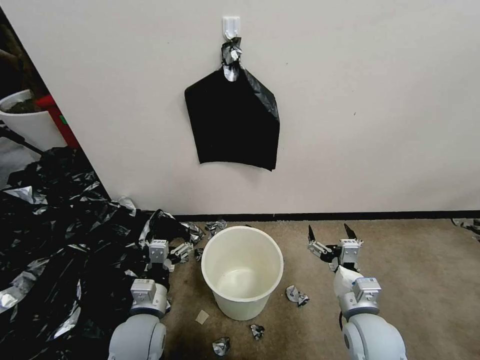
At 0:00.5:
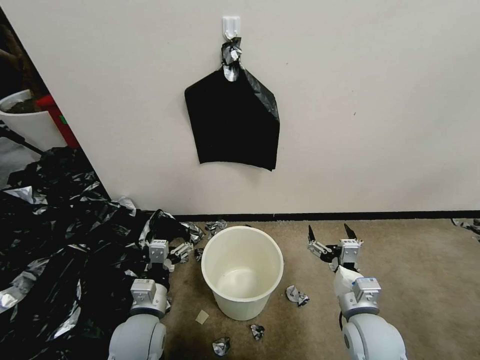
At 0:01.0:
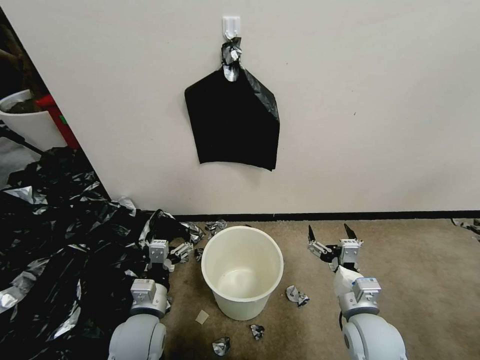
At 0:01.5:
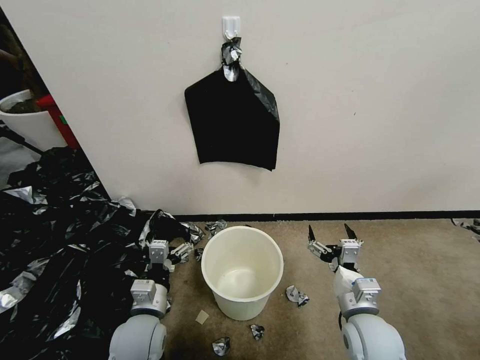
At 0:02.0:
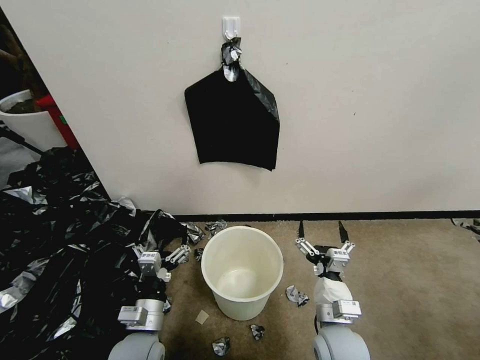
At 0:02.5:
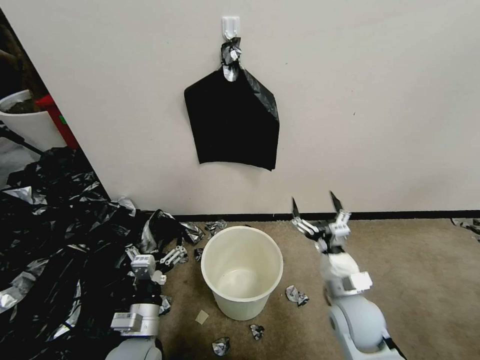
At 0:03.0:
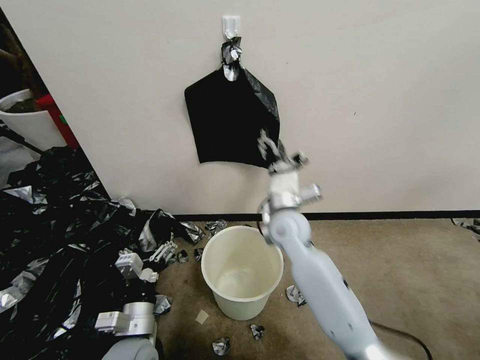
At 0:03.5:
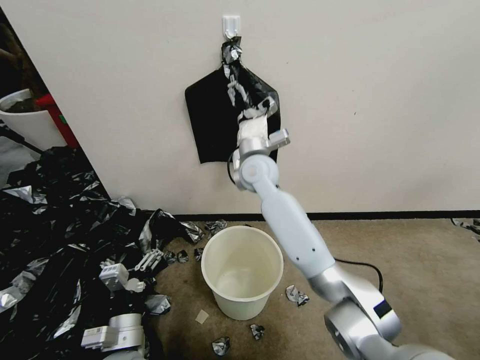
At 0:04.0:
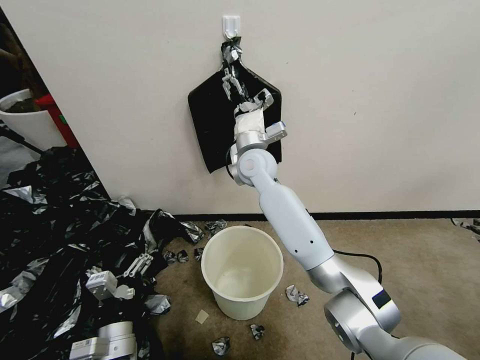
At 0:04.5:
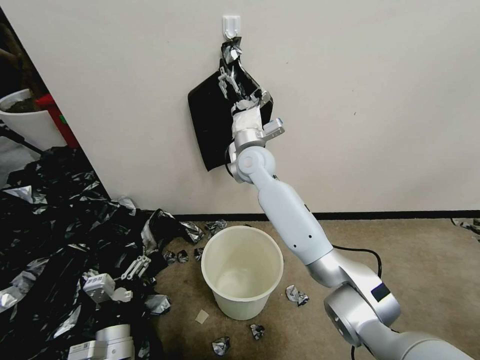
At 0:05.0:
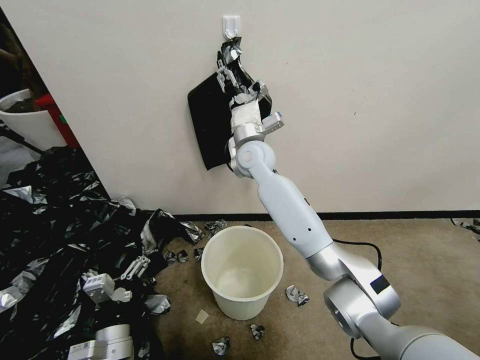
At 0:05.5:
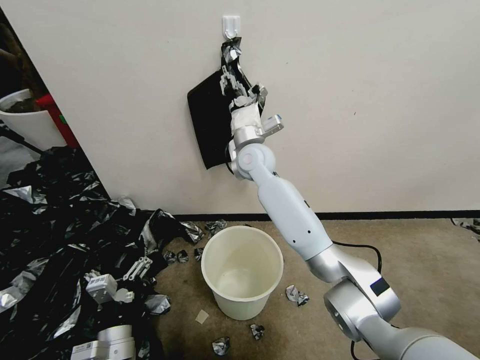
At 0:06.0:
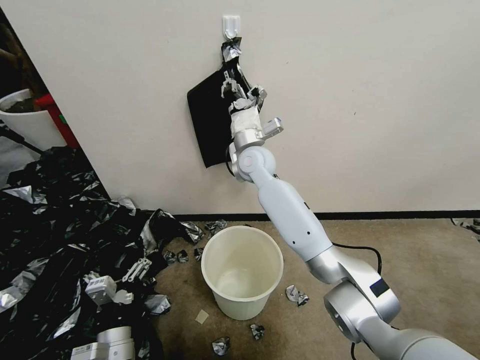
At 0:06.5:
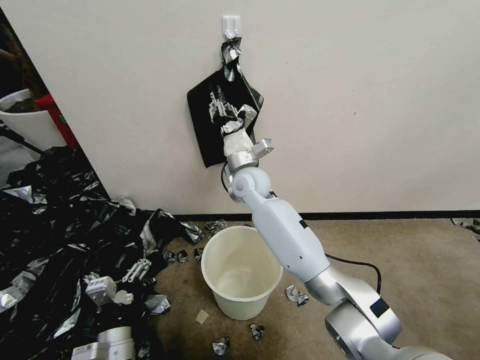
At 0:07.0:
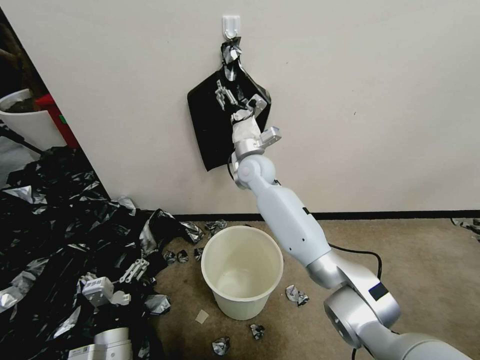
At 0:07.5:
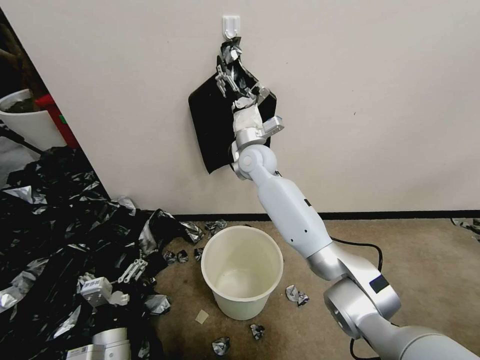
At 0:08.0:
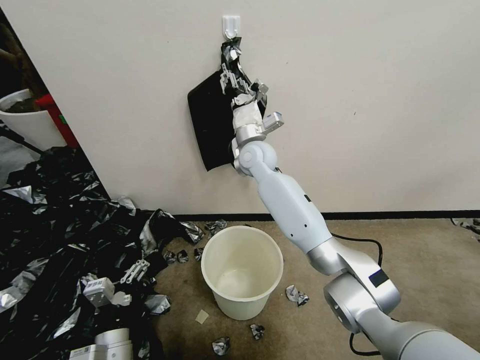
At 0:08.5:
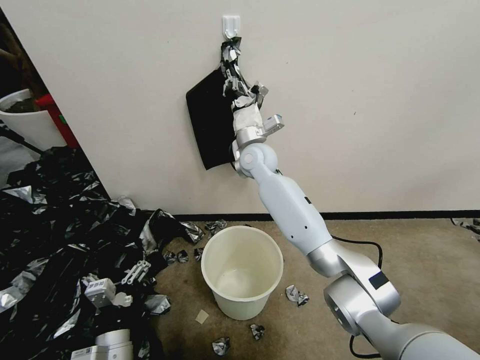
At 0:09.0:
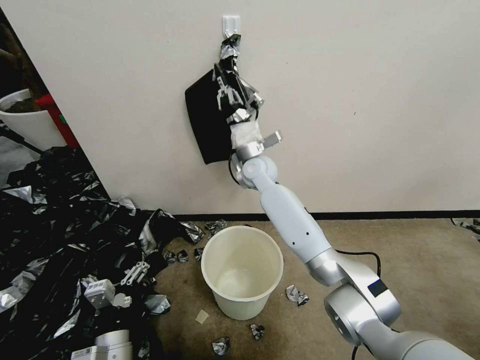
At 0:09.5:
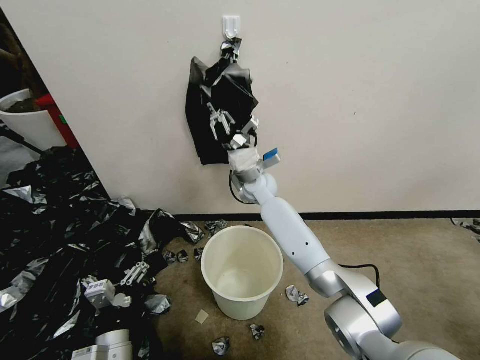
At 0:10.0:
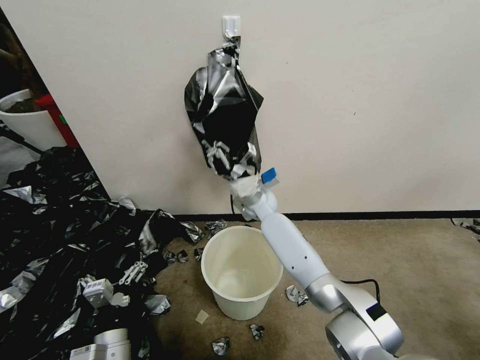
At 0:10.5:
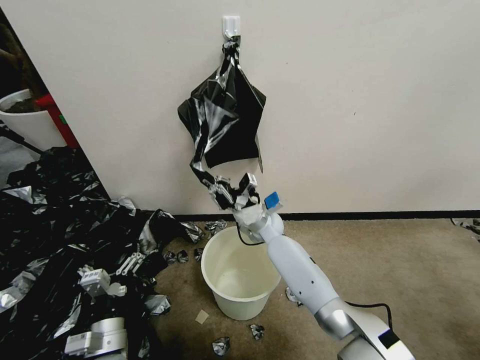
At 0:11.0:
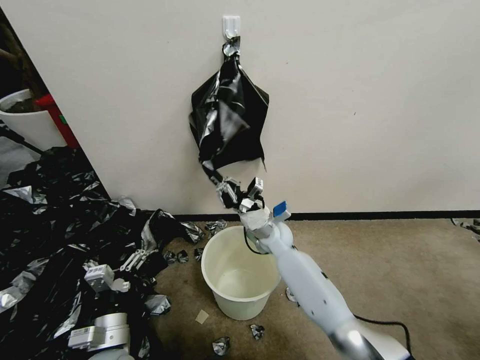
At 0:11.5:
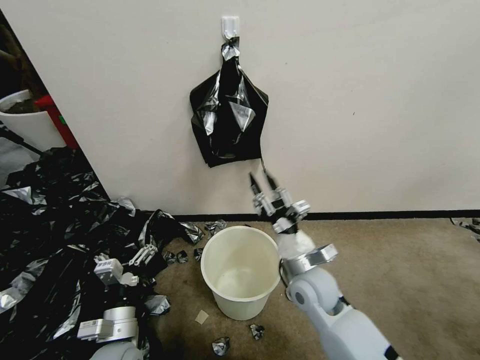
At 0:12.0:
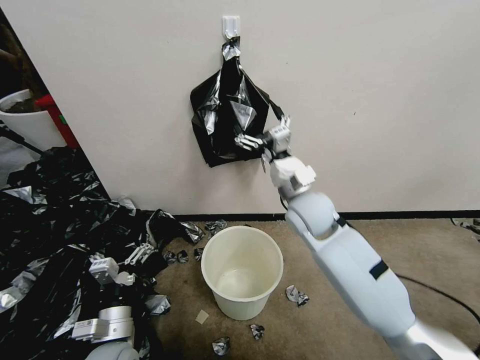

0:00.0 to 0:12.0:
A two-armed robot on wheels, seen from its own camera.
Task of the whole recording: Place a trash bag onto the trash bin.
0:02.0 to 0:04.0: The right gripper travels forward, upward and to the left by some 40 cm. Meanwhile the left gripper ends up roughly 5 cm from where it was.
0:04.0 to 0:06.0: The right gripper closes its fingers.
0:06.0 to 0:08.0: The right gripper opens its fingers.
0:08.0 to 0:10.0: The right gripper moves downward, approximately 15 cm, and closes up.
0:10.0 to 0:12.0: The right gripper moves backward, upward and to the right, about 20 cm, and opens its fingers.

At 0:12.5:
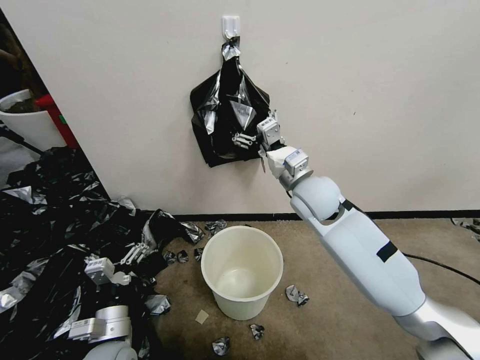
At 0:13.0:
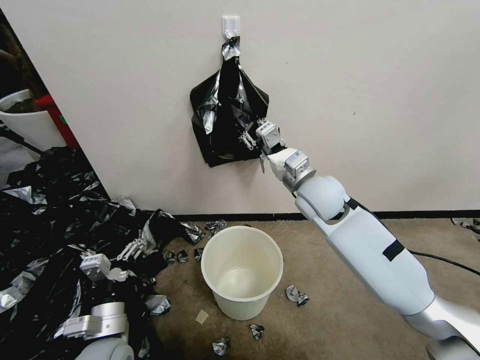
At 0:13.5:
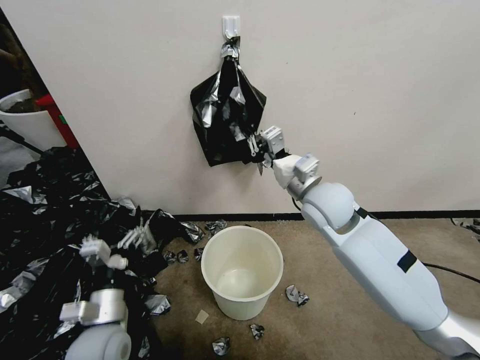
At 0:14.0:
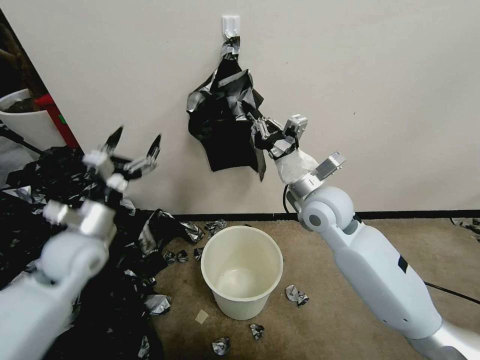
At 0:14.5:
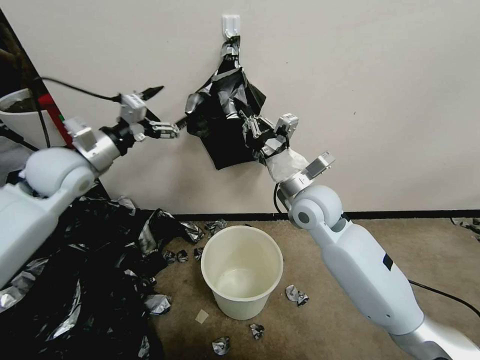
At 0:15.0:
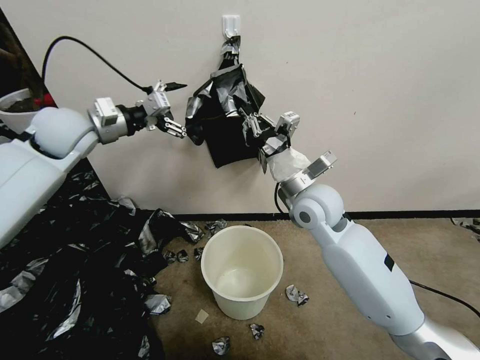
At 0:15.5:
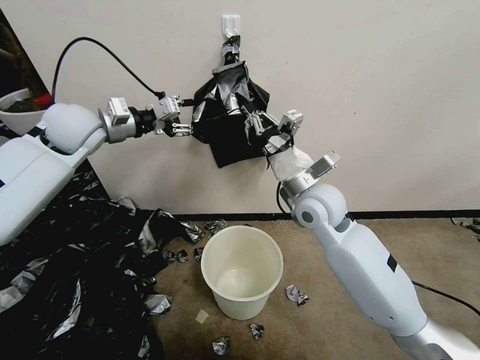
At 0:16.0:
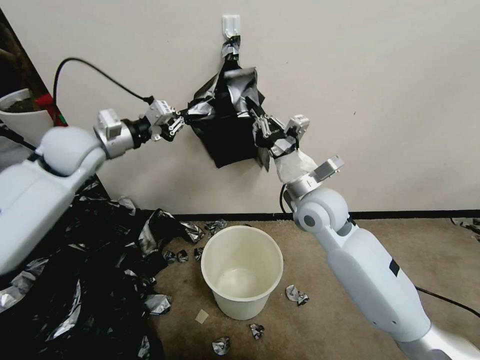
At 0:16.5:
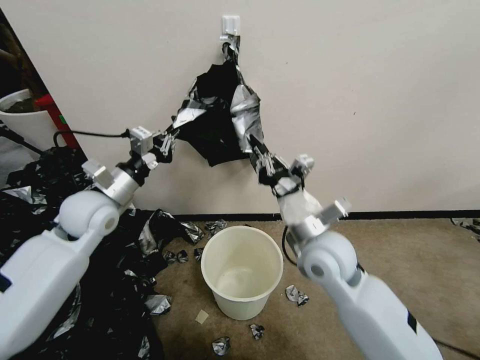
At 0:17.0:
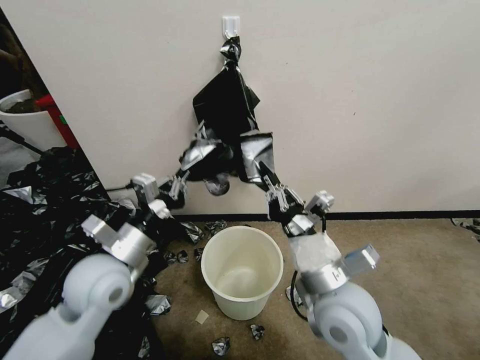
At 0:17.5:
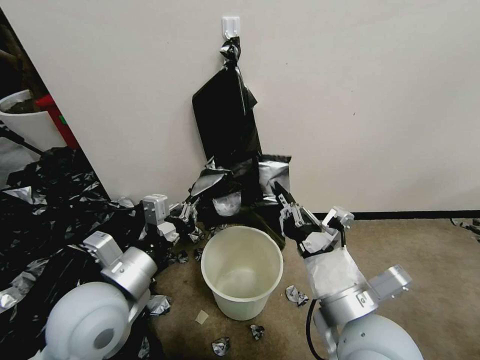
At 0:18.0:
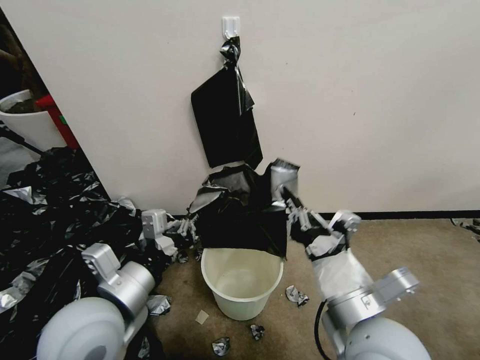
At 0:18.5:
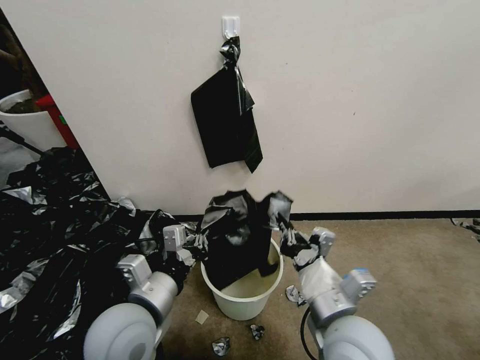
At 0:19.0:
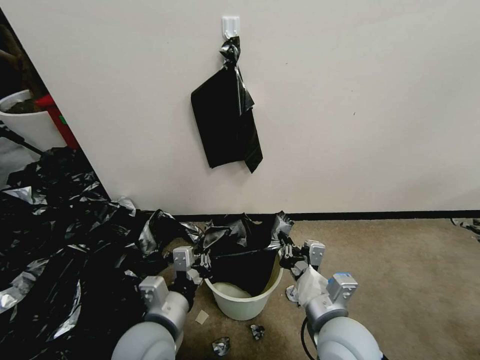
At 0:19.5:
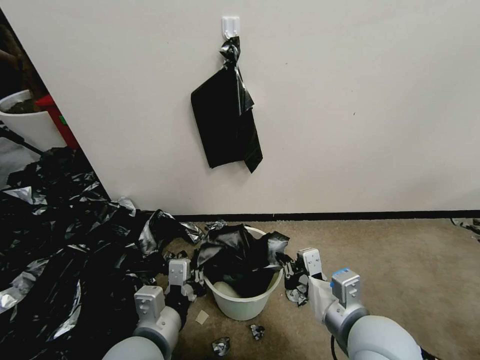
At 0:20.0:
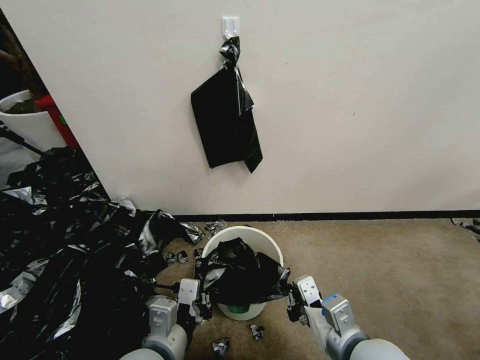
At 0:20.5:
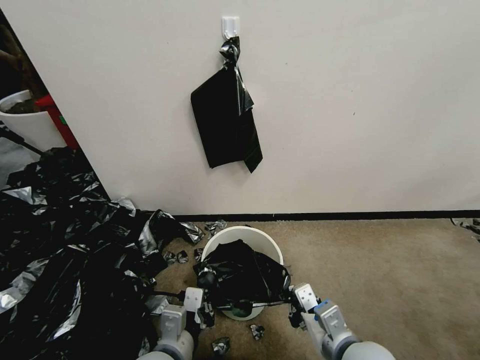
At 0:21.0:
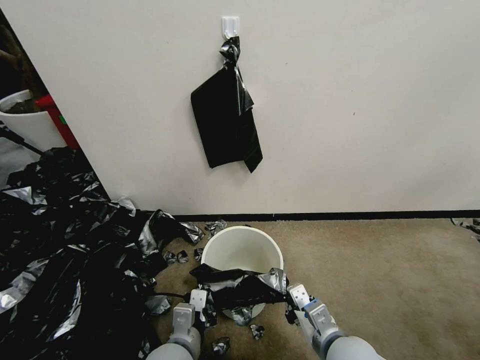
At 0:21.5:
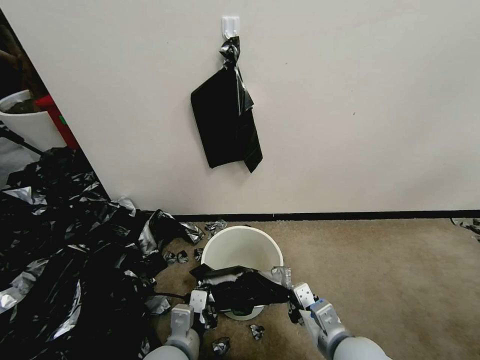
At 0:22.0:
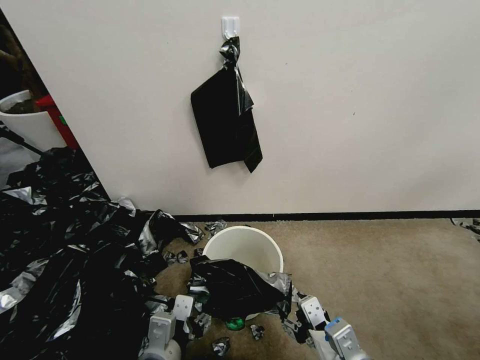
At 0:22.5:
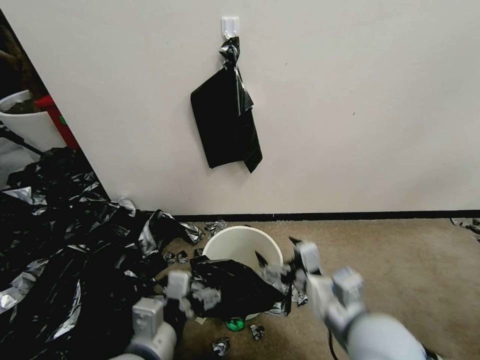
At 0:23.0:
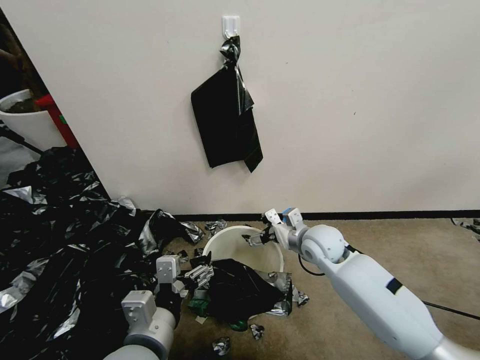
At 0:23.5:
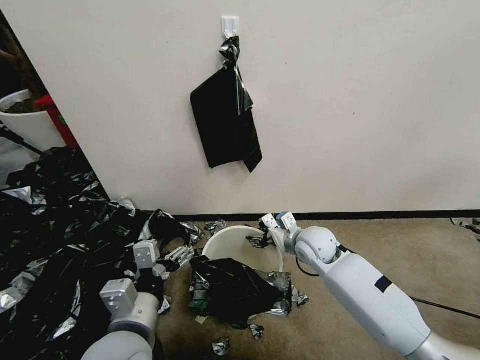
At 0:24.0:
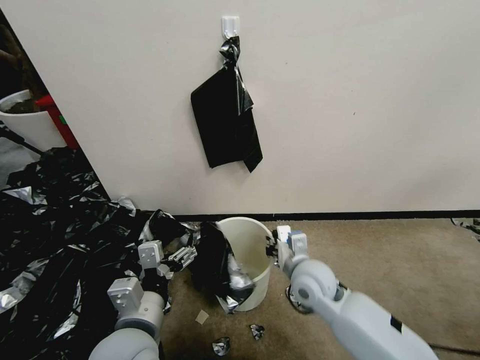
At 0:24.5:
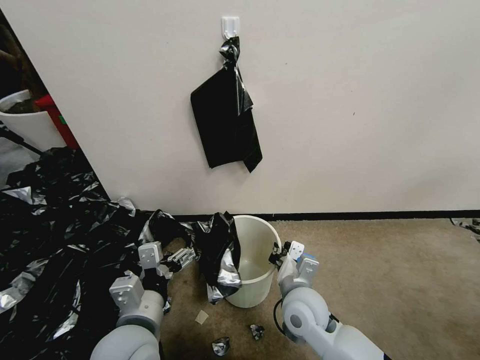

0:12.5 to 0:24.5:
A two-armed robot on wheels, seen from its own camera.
Task of the whole recording: Place a trash bag onto the trash bin.
0:12.5 to 0:14.5: The left gripper goes approximately 40 cm upward and forward. Meanwhile the right gripper closes its fingers.
0:14.5 to 0:16.5: The left gripper shifts approximately 10 cm downward, and closes. Meanwhile the right gripper heads backward, covering roughly 10 cm.
0:16.5 to 0:18.5: The left gripper moves backward and to the right, some 25 cm; the right gripper travels backward by roughly 15 cm.
0:18.5 to 0:20.5: The left gripper is displaced downward and backward by approximately 10 cm. The right gripper swings up and down, roughly 5 cm each way, with 2 reversals.
0:20.5 to 0:22.5: Both grippers move upward, some 5 cm. The left gripper opens up, while the right gripper opens its fingers.
0:22.5 to 0:24.5: The right gripper moves downward, forward and to the left, about 20 cm, and closes its fingers.

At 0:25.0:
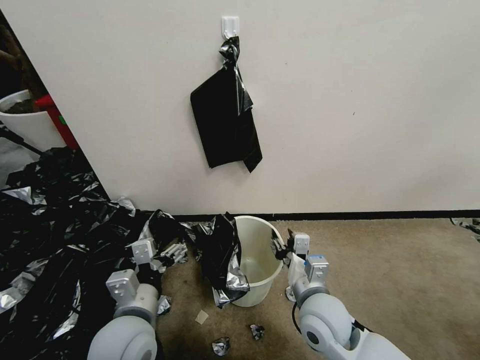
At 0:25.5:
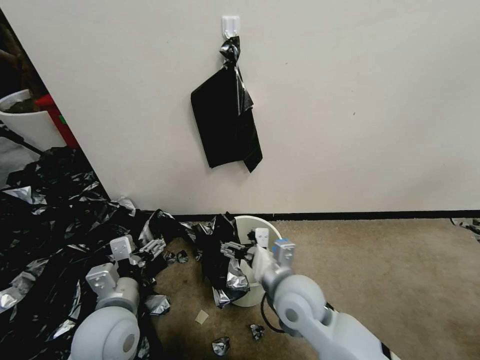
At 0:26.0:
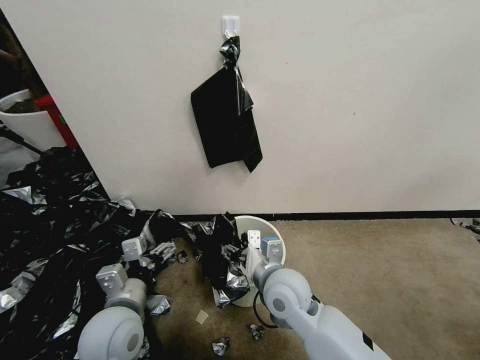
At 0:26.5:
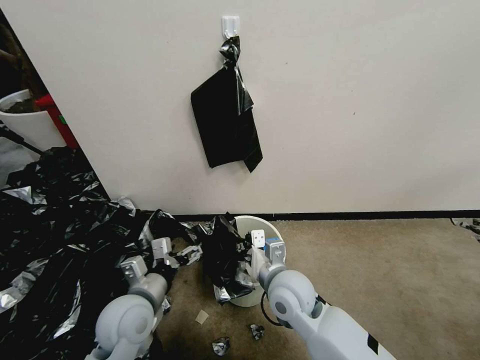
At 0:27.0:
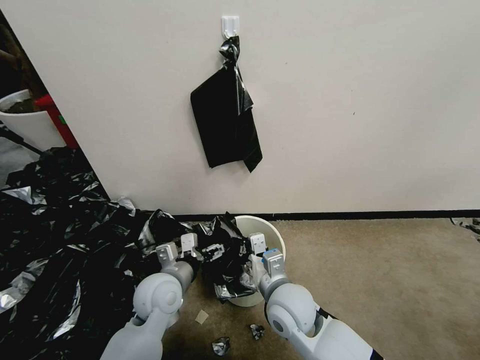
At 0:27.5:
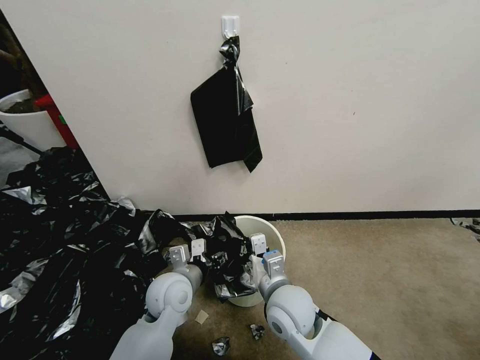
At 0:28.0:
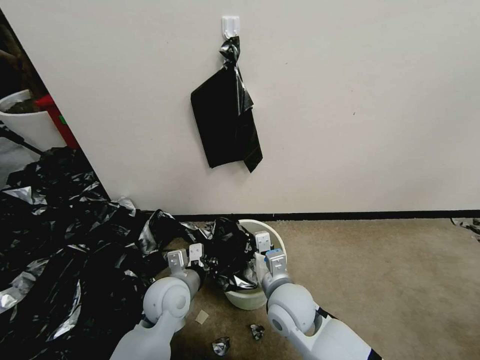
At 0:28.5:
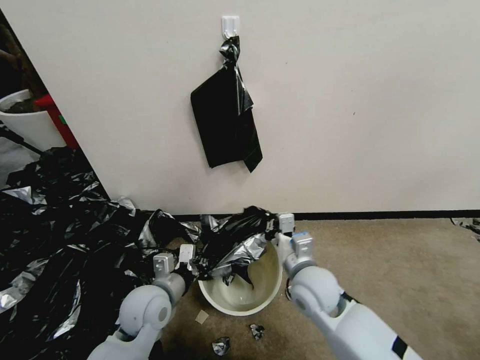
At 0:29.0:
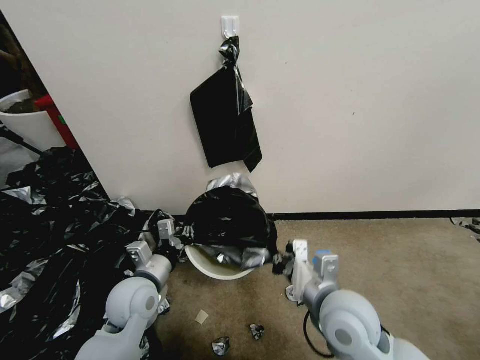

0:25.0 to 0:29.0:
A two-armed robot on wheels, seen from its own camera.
Task of the whole recording: Place a trash bag onto the trash bin.
0:25.0 to 0:27.0: The left gripper moves forward and downward, about 10 cm; the right gripper goes approximately 5 cm to the left, and closes.
0:27.0 to 0:29.0: The left gripper closes its fingers. Meanwhile the right gripper shifts roughly 10 cm to the right and upward.
